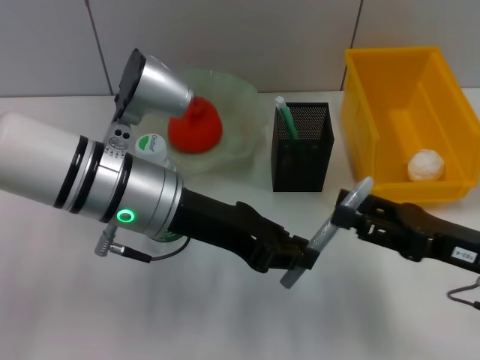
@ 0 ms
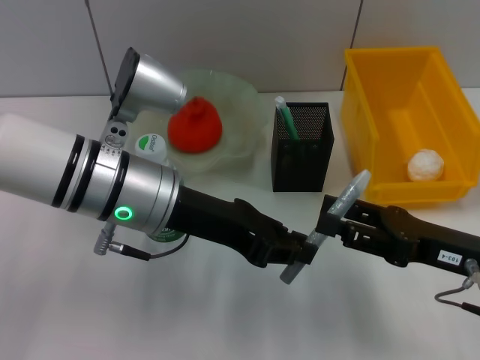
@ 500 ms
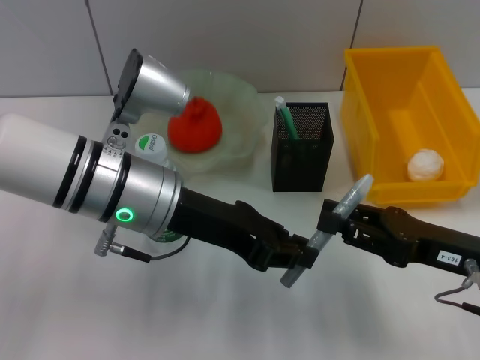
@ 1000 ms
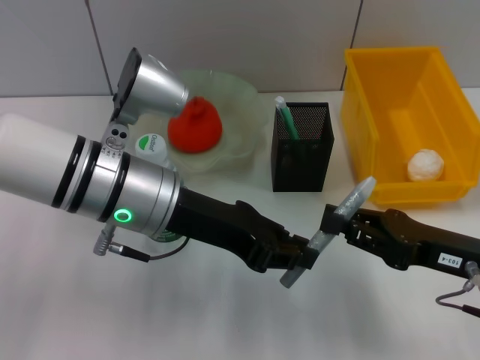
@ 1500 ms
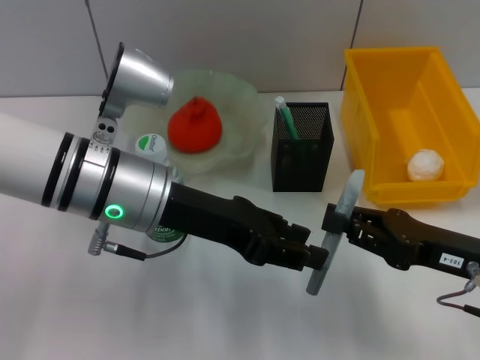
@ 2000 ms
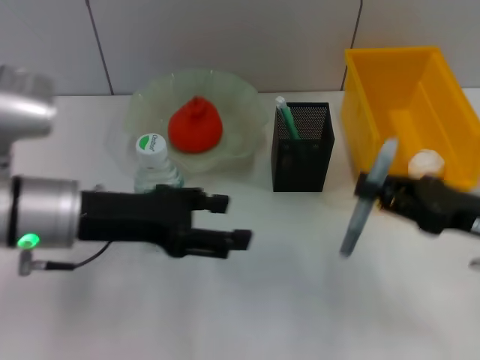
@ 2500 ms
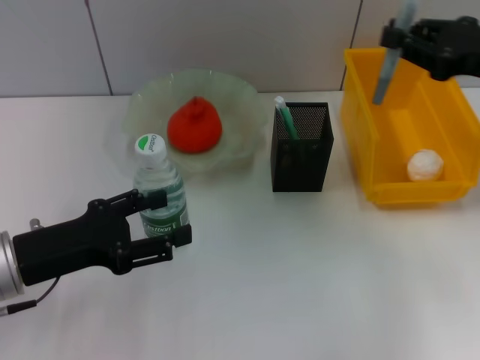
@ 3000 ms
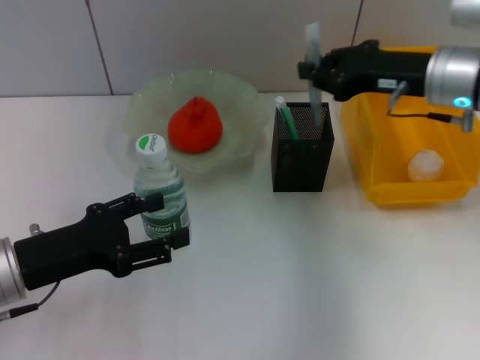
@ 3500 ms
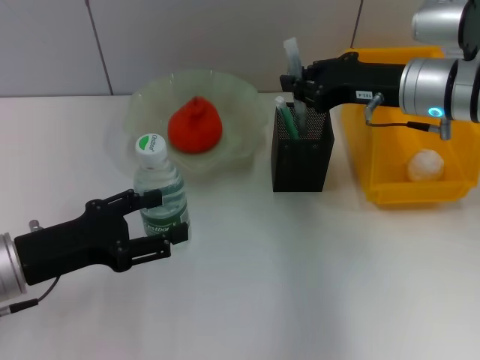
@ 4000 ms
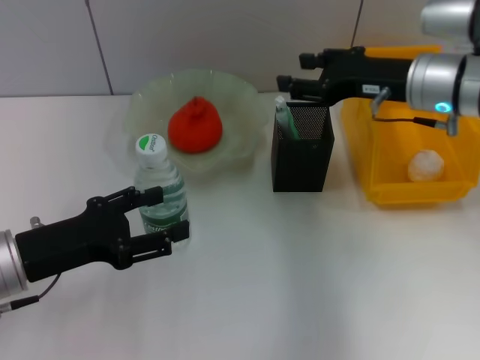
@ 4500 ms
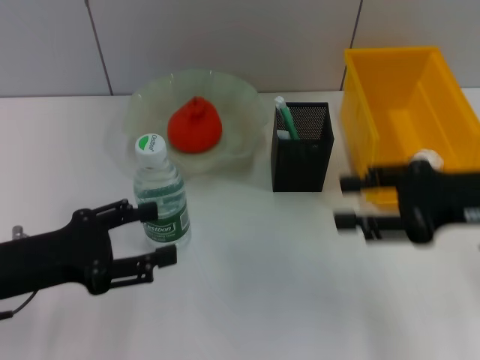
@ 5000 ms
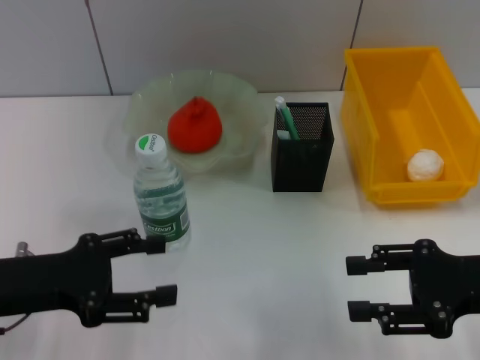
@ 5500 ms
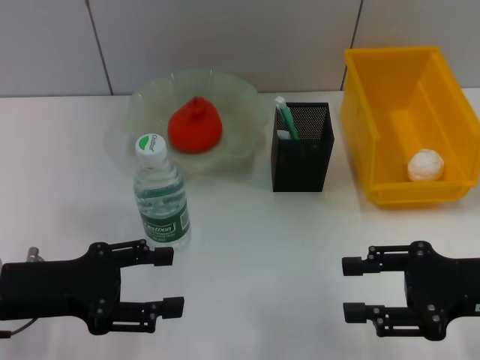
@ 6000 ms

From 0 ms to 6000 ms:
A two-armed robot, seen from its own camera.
Step, from 2000 ms to 4000 ms: Place the gray glue into the pen holder with the right hand.
From 0 ms to 2000 ms: The right gripper closes up.
From 2000 ms to 4000 ms: The right gripper heads forward and upward, covering some 20 cm. Meanwhile the left gripper goes about 15 cm to the left, downward and backward, and opens its fingers.
From 4000 ms to 6000 ms: The right gripper travels backward and to the right by roughly 20 cm, and opens up.
